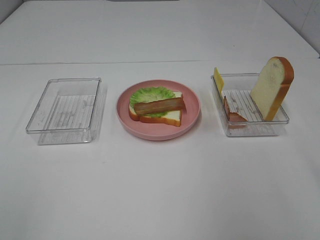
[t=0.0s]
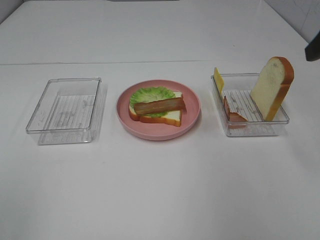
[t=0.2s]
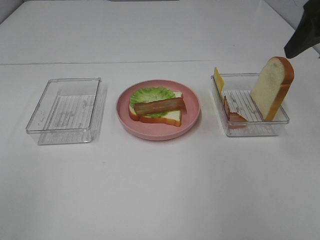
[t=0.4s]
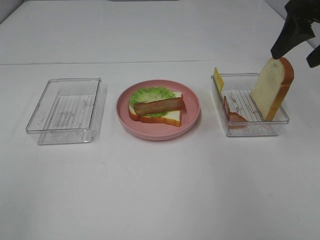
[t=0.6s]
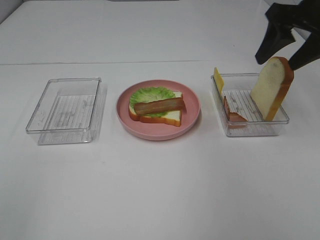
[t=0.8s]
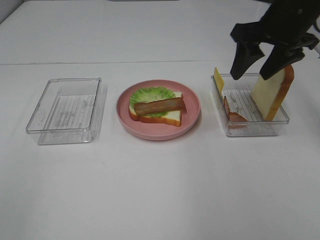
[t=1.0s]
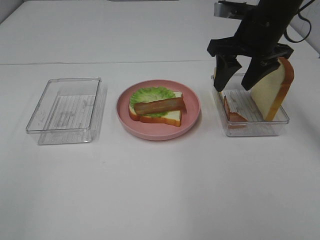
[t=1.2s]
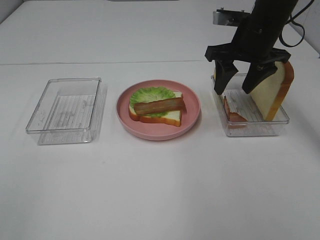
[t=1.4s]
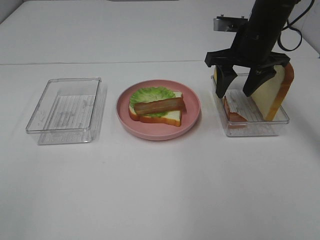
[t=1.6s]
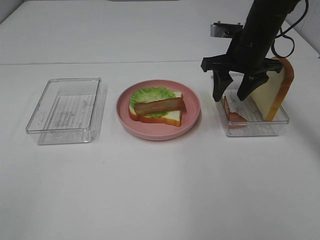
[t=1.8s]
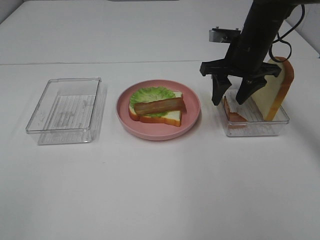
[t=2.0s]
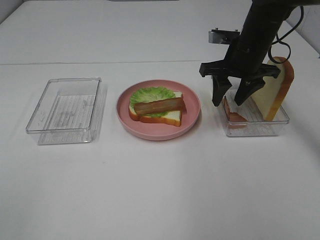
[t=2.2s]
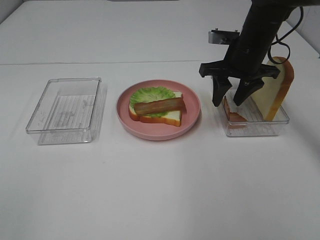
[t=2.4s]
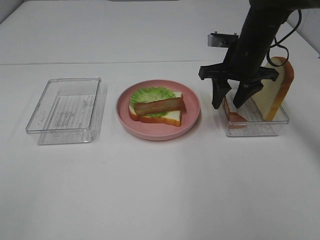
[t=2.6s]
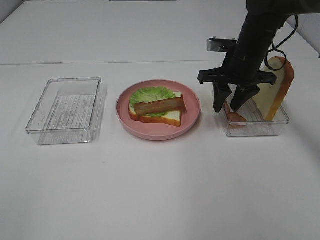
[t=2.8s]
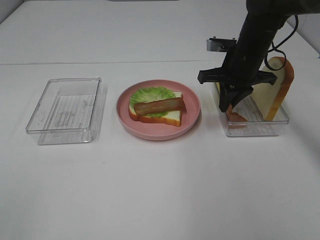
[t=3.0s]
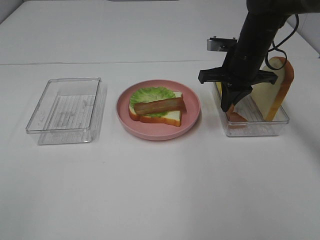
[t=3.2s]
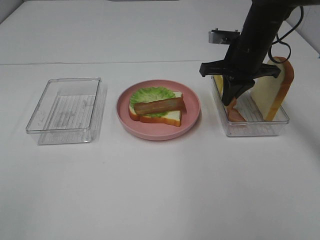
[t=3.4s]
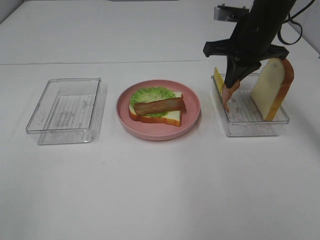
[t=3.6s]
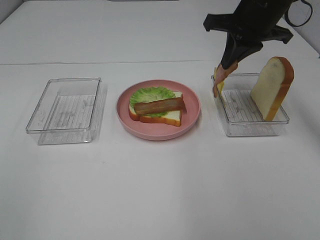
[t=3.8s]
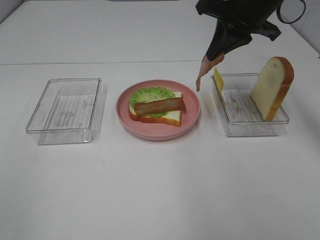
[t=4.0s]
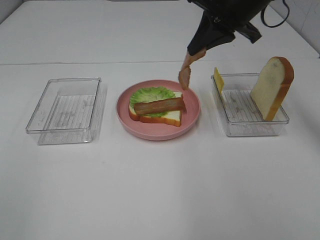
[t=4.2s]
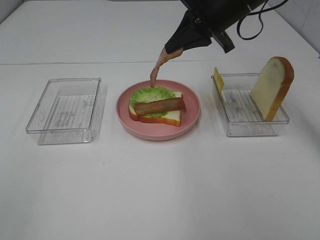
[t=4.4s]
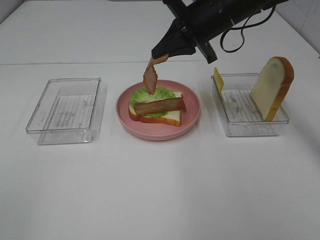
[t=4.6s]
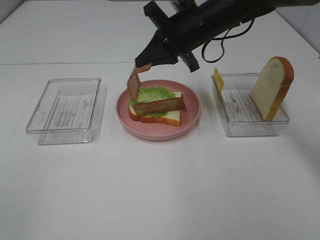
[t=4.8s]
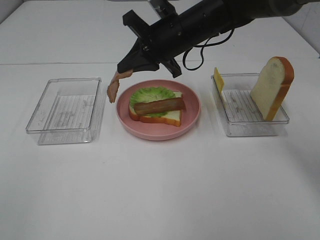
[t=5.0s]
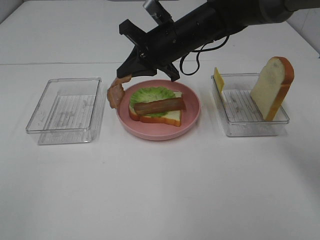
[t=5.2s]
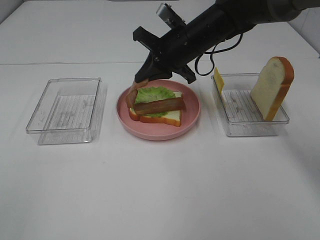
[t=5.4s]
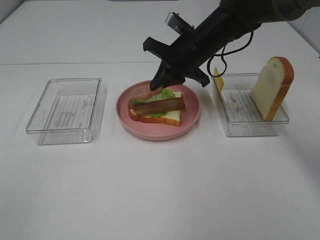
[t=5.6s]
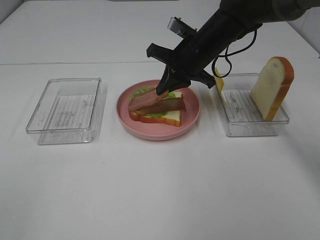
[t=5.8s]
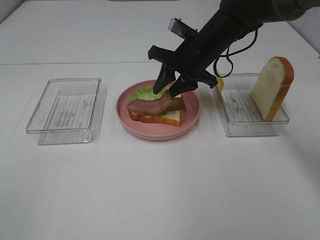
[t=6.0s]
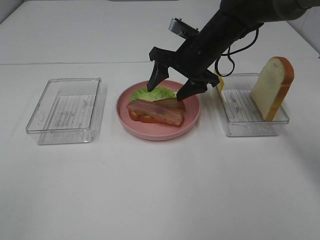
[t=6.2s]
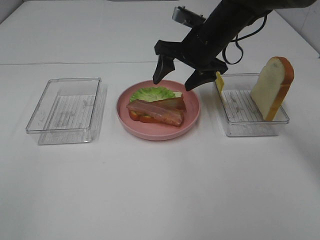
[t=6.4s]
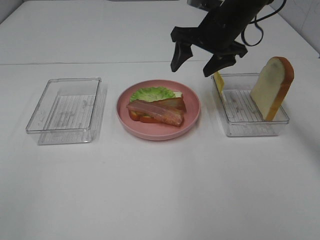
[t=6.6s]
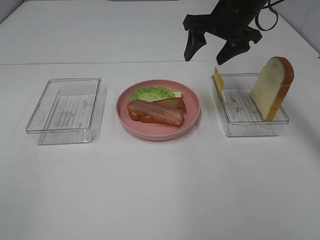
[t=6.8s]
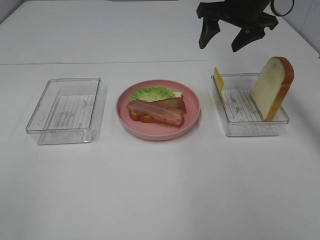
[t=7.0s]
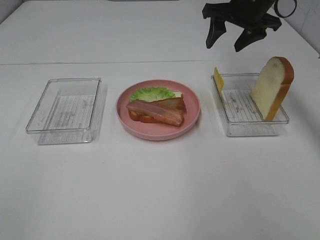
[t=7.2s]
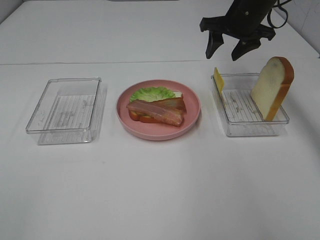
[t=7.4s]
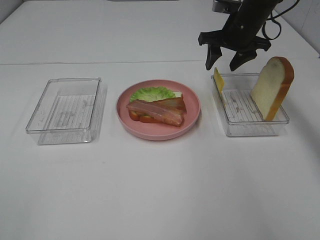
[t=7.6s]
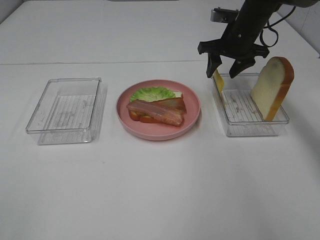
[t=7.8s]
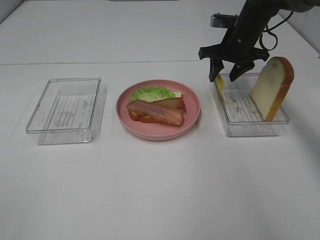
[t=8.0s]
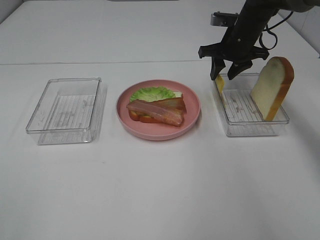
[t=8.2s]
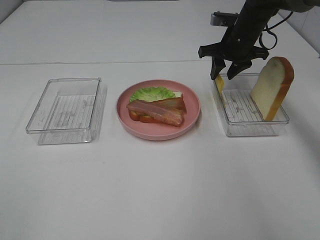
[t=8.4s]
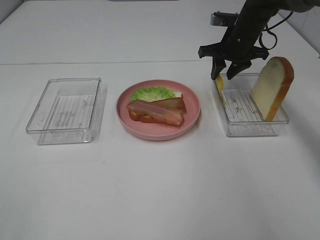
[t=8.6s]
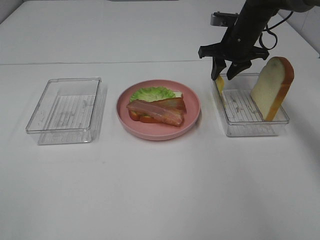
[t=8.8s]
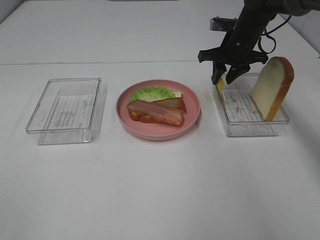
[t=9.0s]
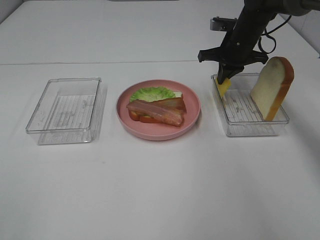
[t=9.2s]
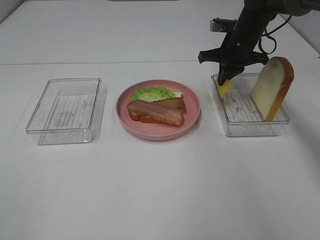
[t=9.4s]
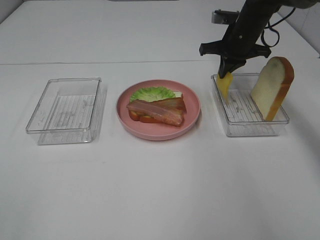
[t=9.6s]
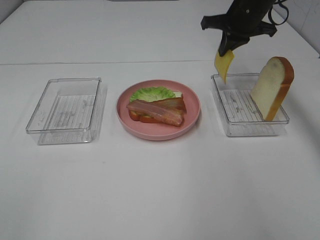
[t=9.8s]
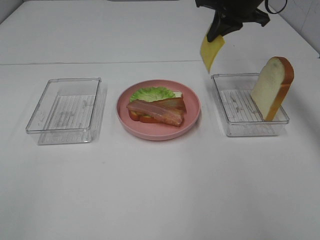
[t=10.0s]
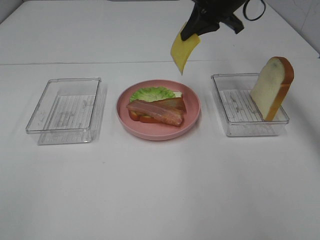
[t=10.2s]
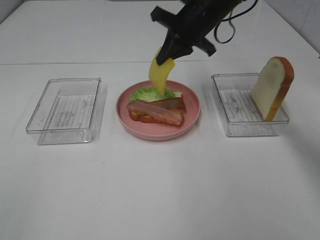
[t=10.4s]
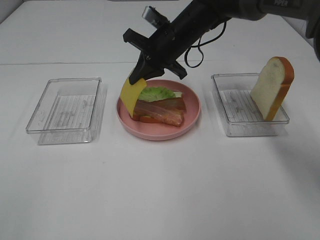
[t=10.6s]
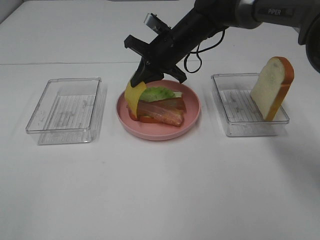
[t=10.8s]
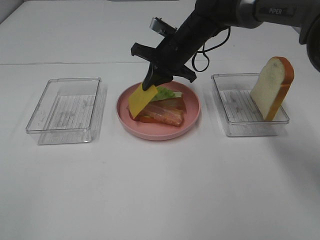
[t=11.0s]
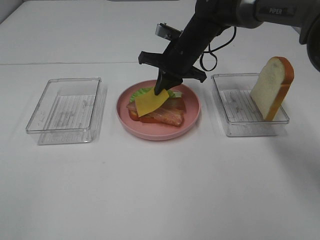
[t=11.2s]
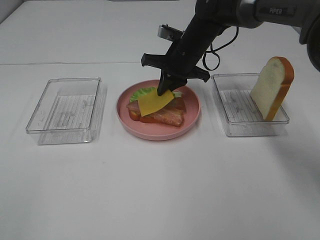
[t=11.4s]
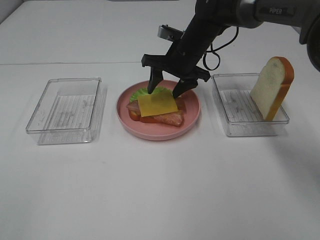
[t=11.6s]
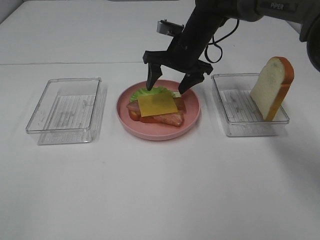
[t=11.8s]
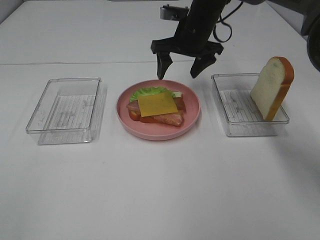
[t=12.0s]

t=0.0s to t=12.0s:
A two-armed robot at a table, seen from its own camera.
Task of the whole recording: Make sandwiches.
Step, t=0.0s to t=3.4s: Right hand:grab the bacon.
Step, t=3.6s to t=6.4s: Right hand:place bacon on bacon.
Step, t=6.6s to t=9.4s: Right hand:grab the cheese slice.
Step, t=9.6s to t=12.0s: Right hand:place the cheese slice on top of the bacon.
t=0.0s to t=1.6s: The right gripper shifts approximately 30 cm forward, downward and to the left.
t=1.6s to t=3.0s: The right gripper closes its fingers.
t=3.0s to t=4.4s: The right gripper heads upward, covering approximately 10 cm.
t=4.4s to t=6.0s: The right gripper moves downward, some 10 cm, and opens.
t=6.0s to t=7.6s: The right gripper shifts about 10 cm to the right and forward, and goes upward and returns, approximately 10 cm each way.
t=7.6s to t=9.0s: There are only small adjustments of the grippers.
t=9.0s to t=10.4s: The right gripper goes roughly 10 cm to the left and upward, and closes its fingers.
t=10.4s to t=12.0s: The right gripper travels downward and back again, roughly 10 cm each way, and opens up.

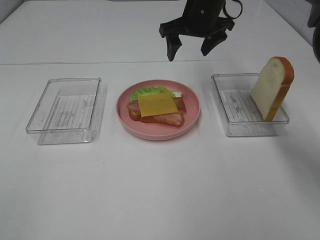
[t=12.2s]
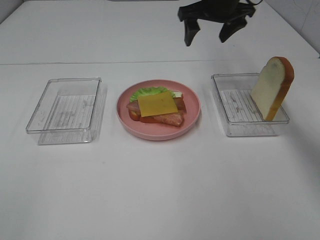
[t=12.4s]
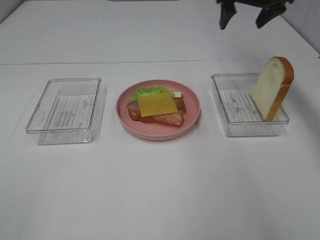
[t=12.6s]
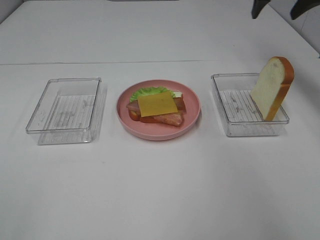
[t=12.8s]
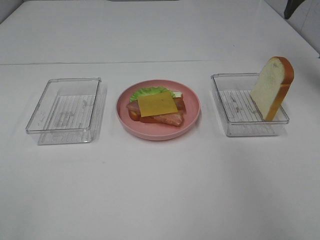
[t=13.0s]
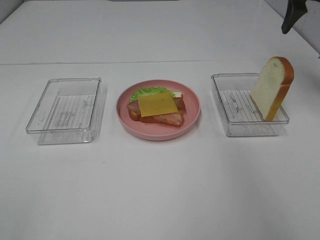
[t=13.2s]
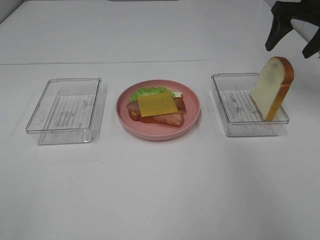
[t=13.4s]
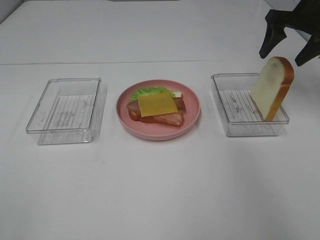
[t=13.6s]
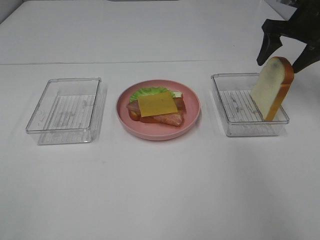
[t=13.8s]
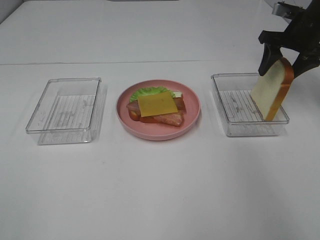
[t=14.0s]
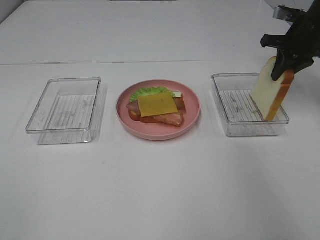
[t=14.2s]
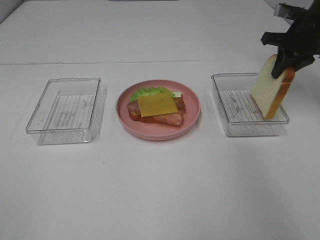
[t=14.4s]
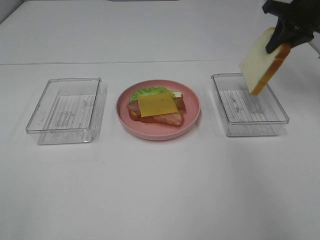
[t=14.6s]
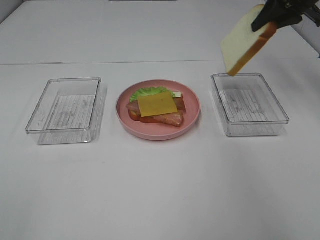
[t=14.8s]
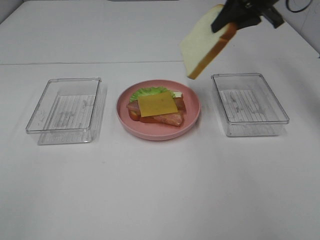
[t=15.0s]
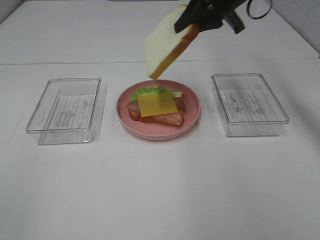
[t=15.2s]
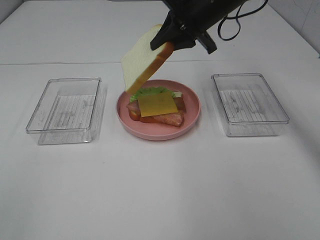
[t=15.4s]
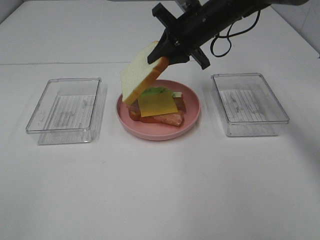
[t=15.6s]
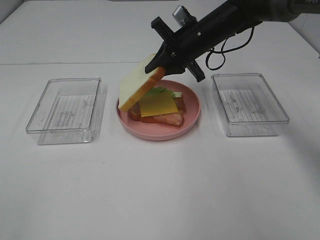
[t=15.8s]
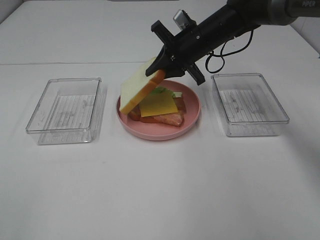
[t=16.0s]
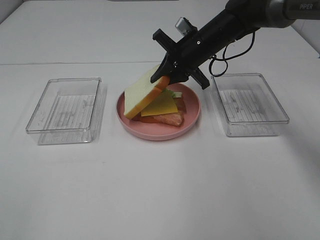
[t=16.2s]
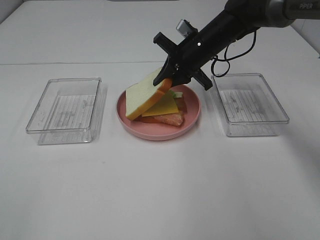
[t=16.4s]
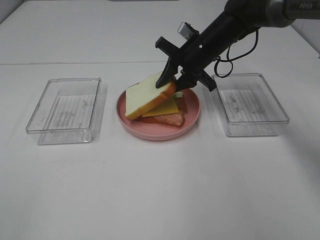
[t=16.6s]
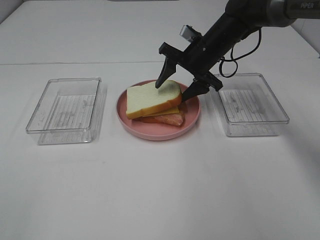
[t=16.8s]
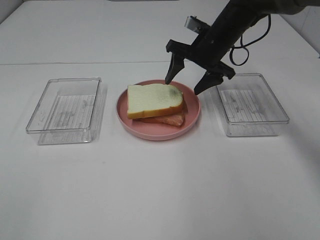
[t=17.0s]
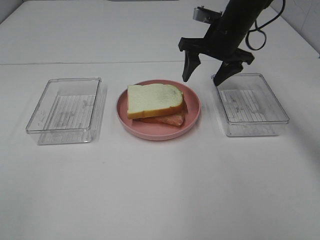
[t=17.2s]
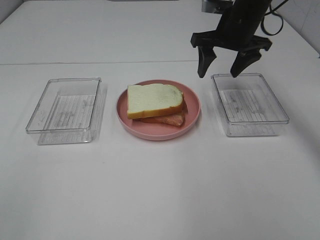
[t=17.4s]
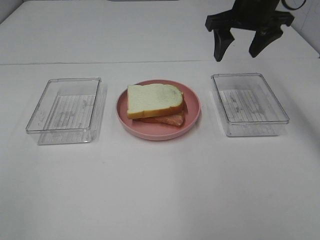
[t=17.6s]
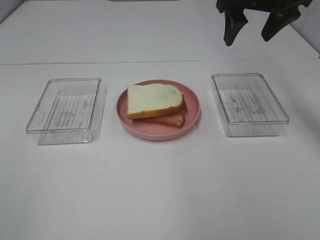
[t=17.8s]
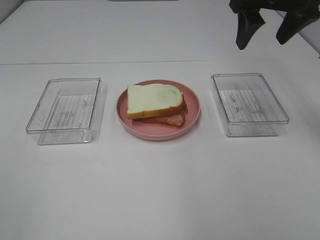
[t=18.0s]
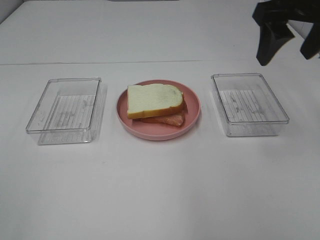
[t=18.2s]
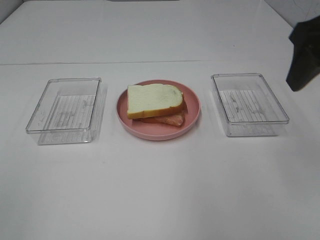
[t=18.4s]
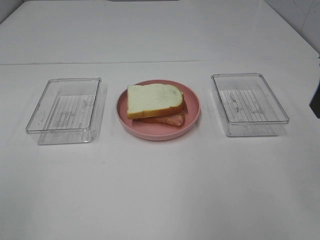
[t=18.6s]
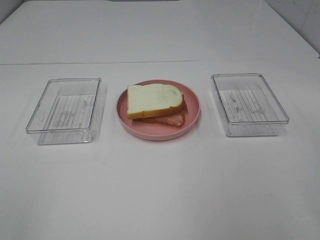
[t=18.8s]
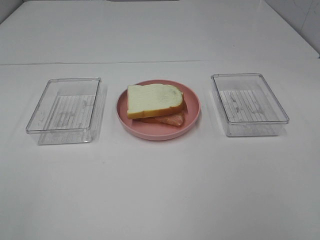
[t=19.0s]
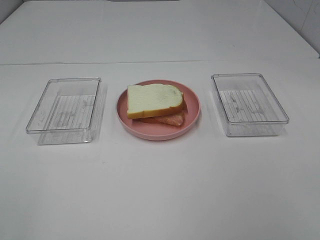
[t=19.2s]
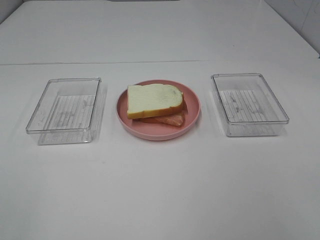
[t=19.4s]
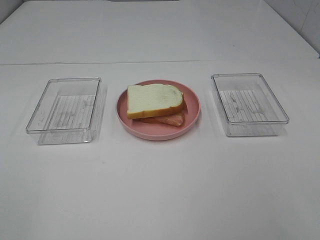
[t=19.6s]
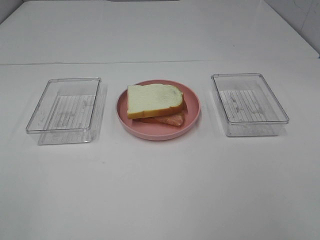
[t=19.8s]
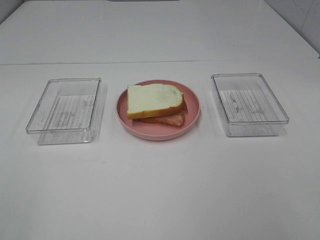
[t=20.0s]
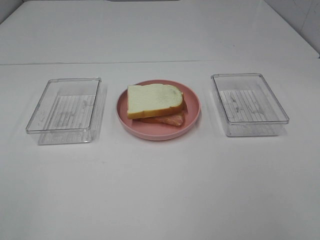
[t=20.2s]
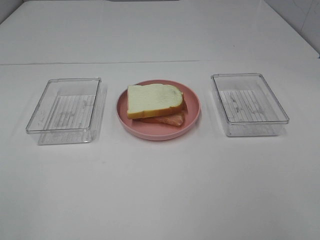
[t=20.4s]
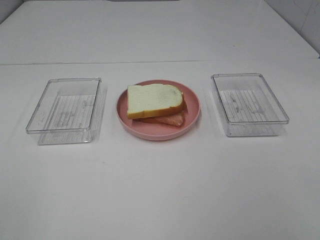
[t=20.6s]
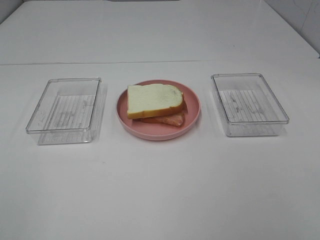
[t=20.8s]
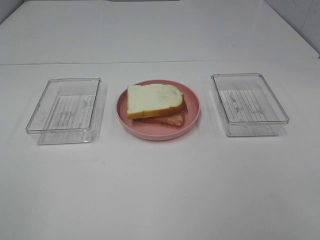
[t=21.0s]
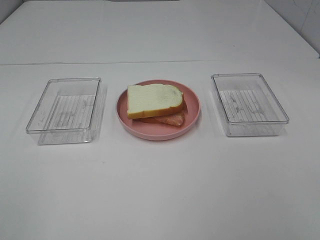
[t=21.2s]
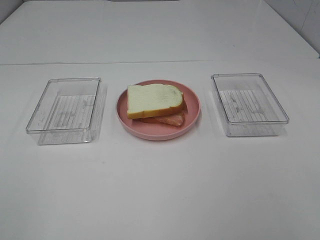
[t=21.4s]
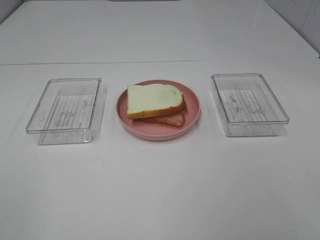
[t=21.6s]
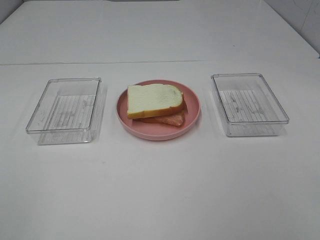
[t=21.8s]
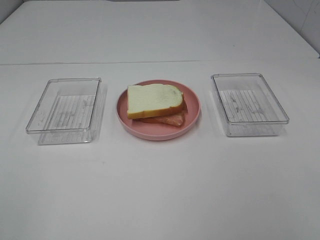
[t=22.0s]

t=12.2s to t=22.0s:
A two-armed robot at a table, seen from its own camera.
Task of the whole recording: Make sandwiches.
Step, t=12.2s to t=14.2s: Right hand:grab the bread slice.
Step, t=14.4s to t=17.2s: Right hand:place the bread slice on the cheese slice.
t=12.2s to t=13.6s: The right gripper is displaced to the right by about 20 cm.
t=13.6s to t=15.0s: The right gripper moves to the left, about 10 cm, and closes up.
t=15.0s to t=16.4s: The right gripper moves downward and to the left, some 15 cm.
t=16.4s to t=17.8s: The right gripper is displaced upward and to the right by roughly 15 cm, and opens its fingers.
t=17.8s to t=19.2s: The right gripper moves backward, roughly 35 cm.
